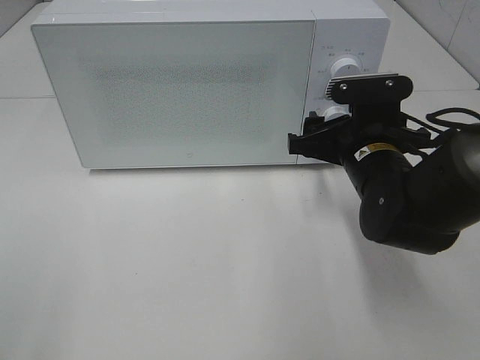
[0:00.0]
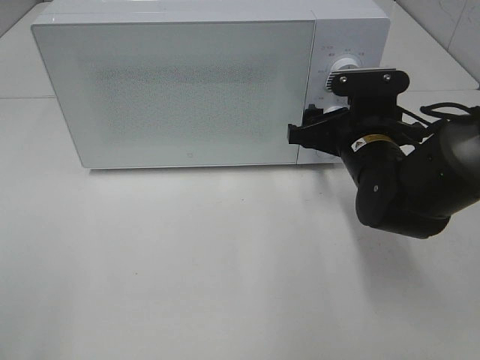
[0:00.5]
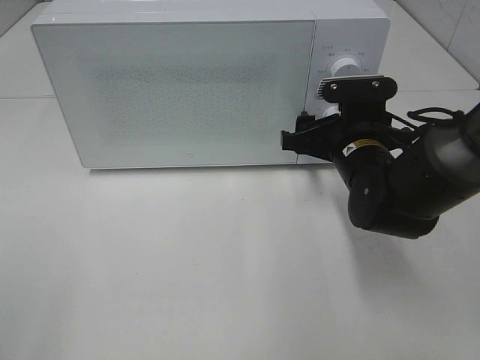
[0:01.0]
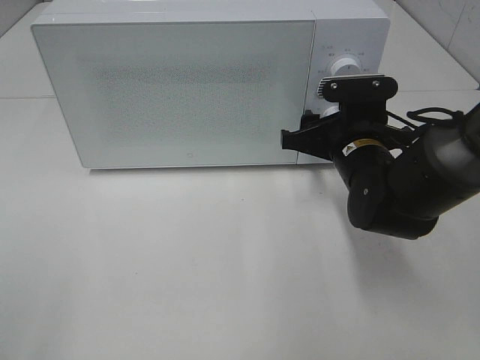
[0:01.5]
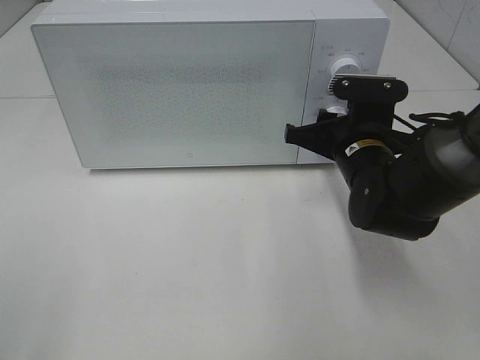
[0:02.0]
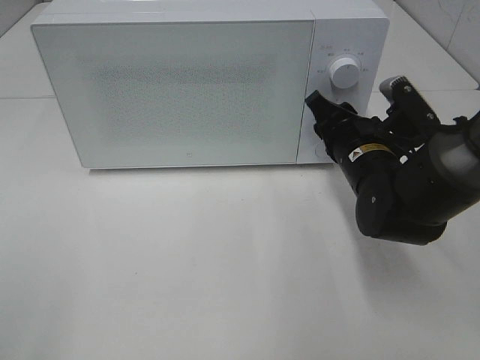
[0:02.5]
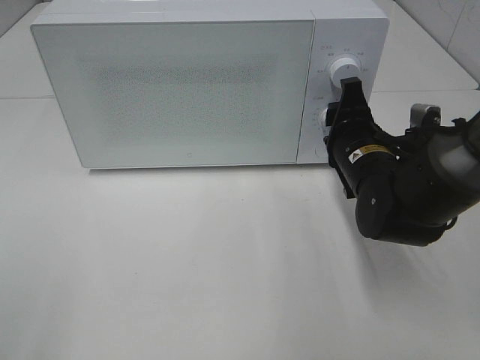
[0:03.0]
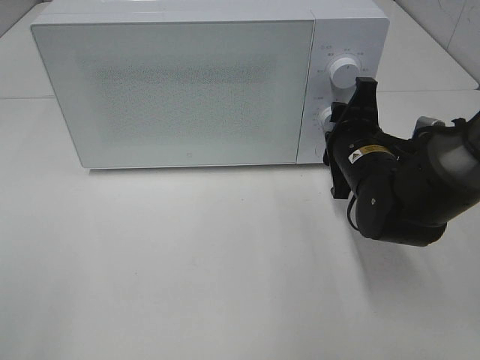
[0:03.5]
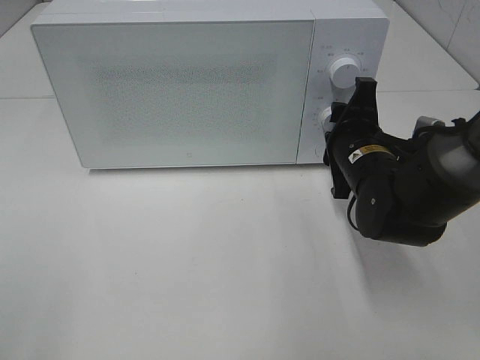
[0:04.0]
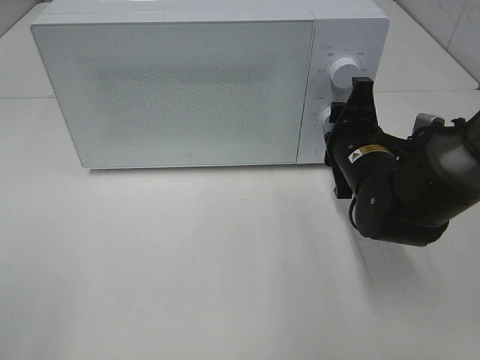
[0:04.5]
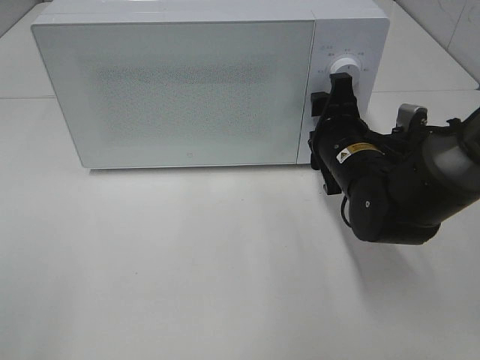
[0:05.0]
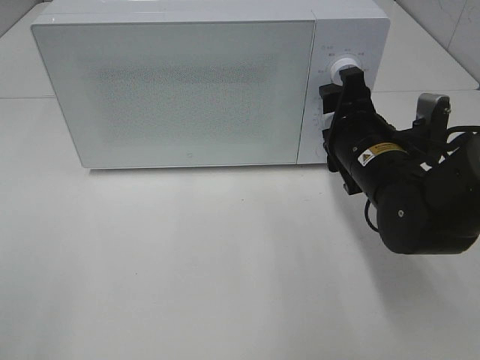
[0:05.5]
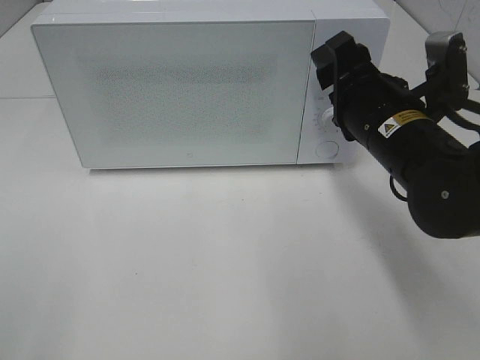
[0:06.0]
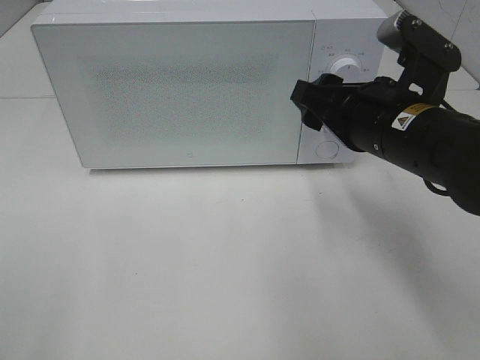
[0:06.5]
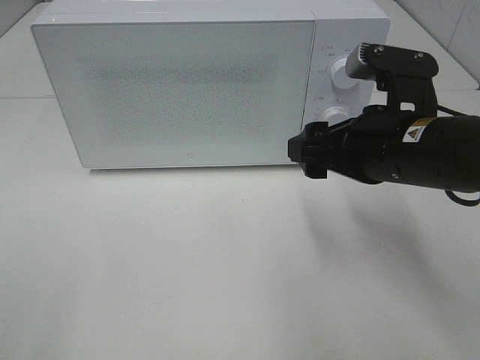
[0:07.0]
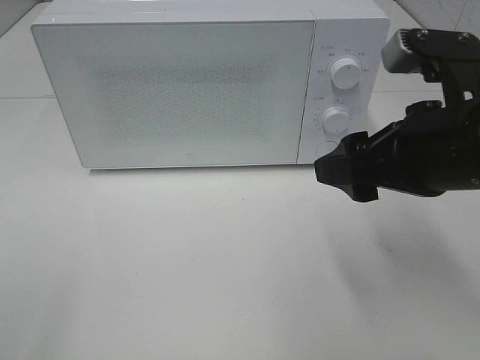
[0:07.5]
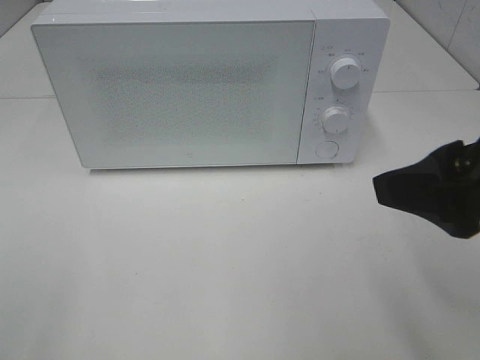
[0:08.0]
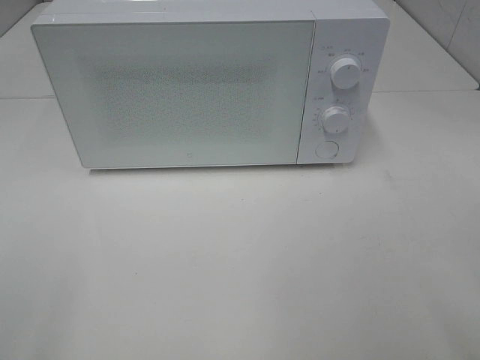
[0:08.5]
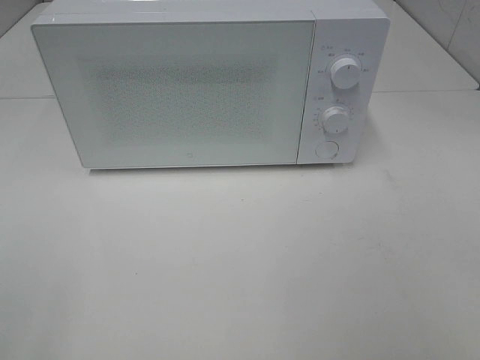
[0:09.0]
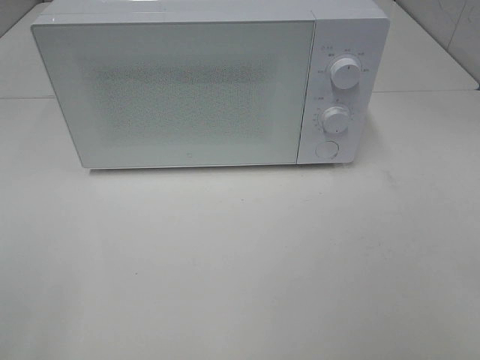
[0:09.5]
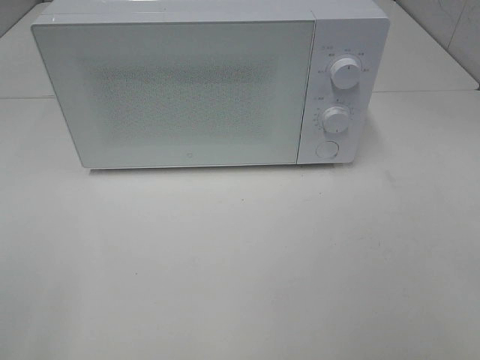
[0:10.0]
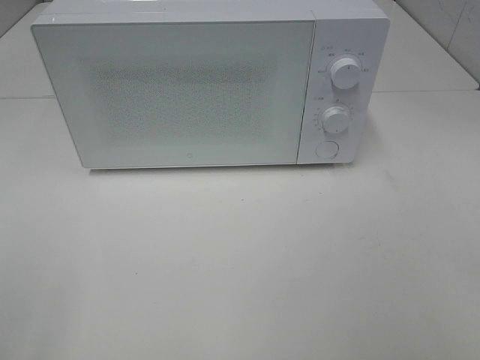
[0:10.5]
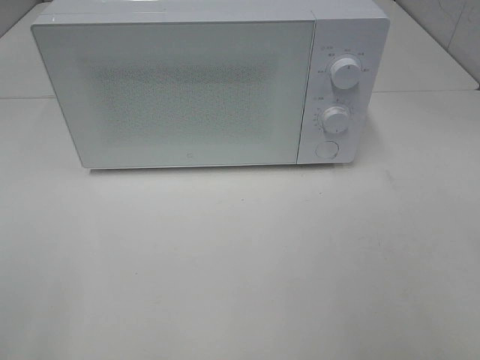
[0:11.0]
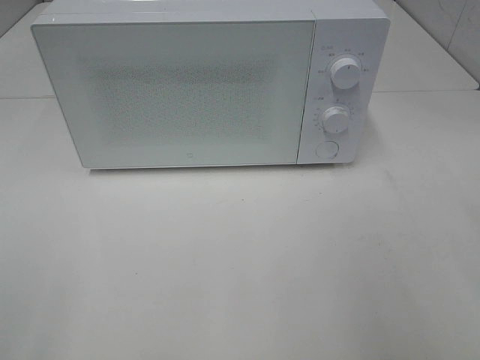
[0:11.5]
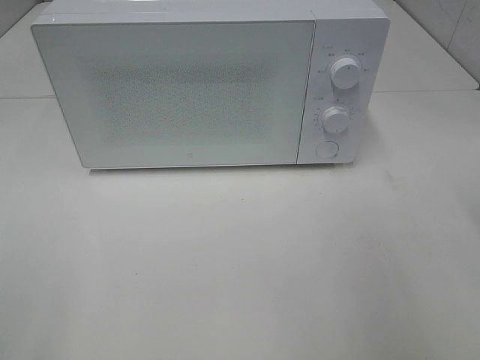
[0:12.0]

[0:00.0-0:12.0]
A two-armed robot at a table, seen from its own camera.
Task of the whole recording: Heat the burger.
Step, 0:00.0 to 0:04.5: Right hand: twist timer button.
0:00.0 to 0:02.0: The right gripper closes up.
0:04.0 to 0:06.0: The right gripper is displaced upward by about 5 cm.
0:06.0 to 0:08.0: The right gripper goes some 20 cm backward, upward and to the right.
0:08.0 to 0:10.0: The right gripper shifts about 15 cm backward and to the right.

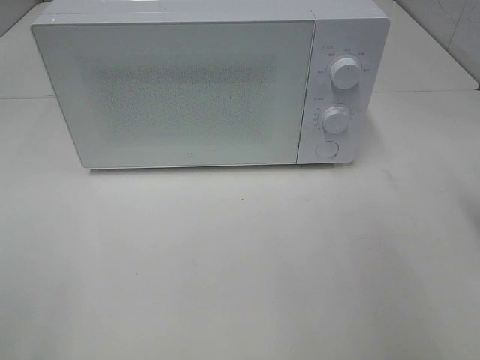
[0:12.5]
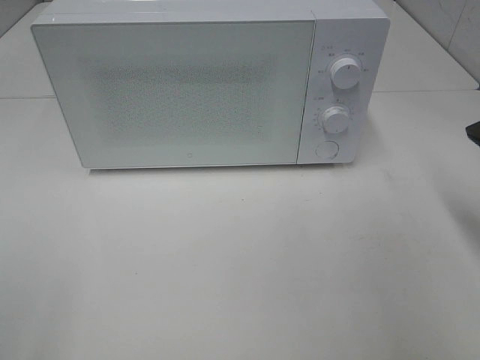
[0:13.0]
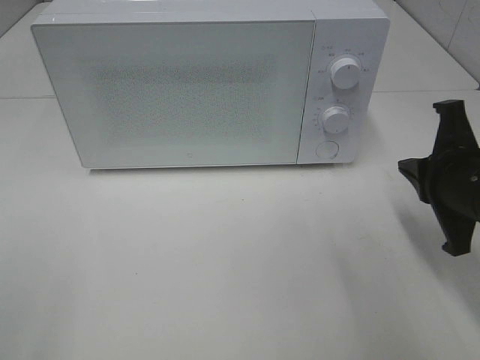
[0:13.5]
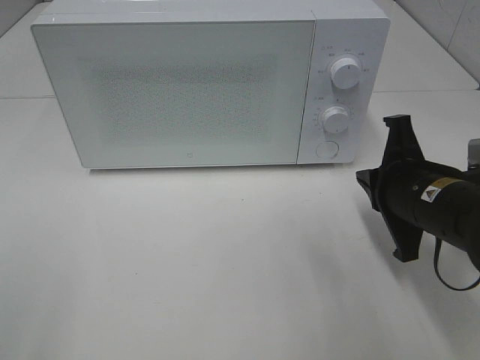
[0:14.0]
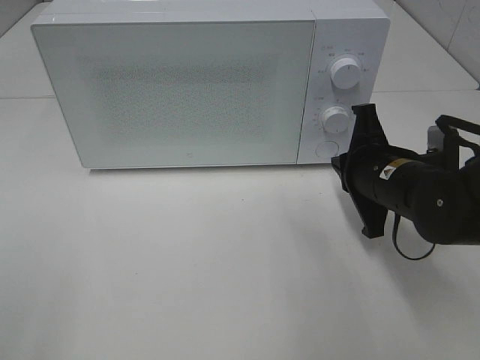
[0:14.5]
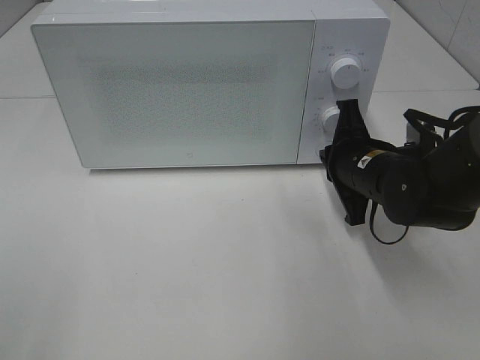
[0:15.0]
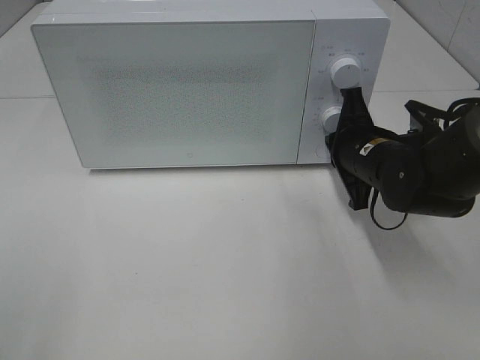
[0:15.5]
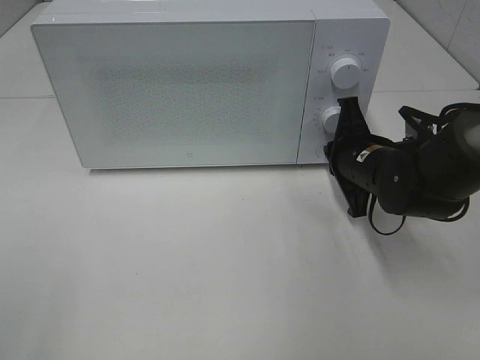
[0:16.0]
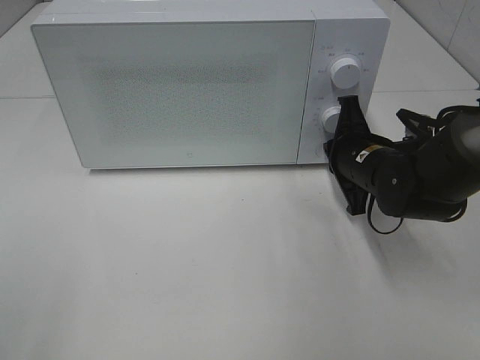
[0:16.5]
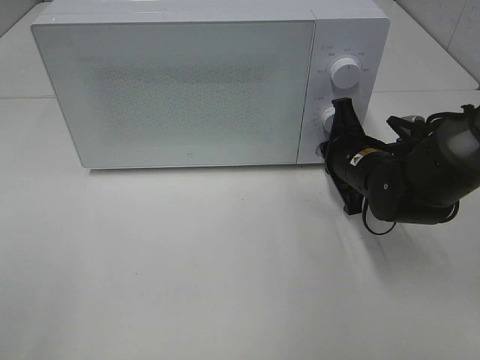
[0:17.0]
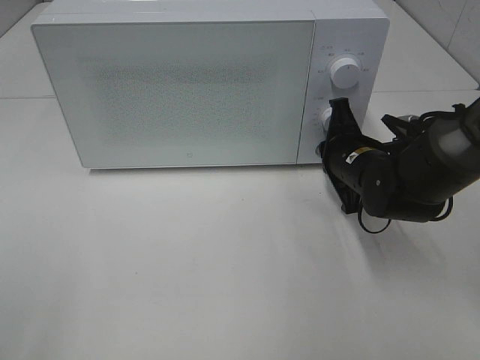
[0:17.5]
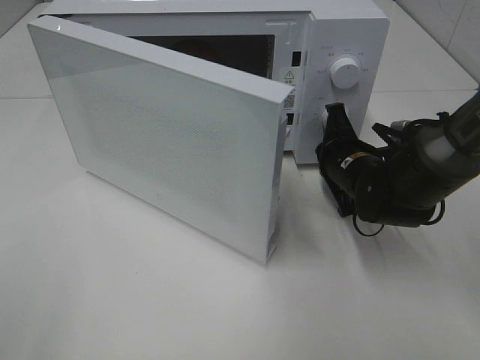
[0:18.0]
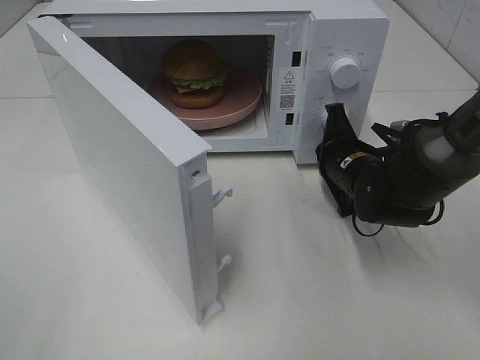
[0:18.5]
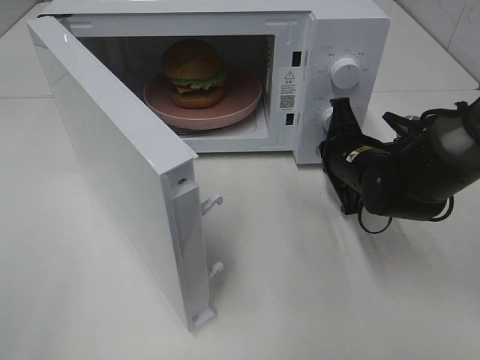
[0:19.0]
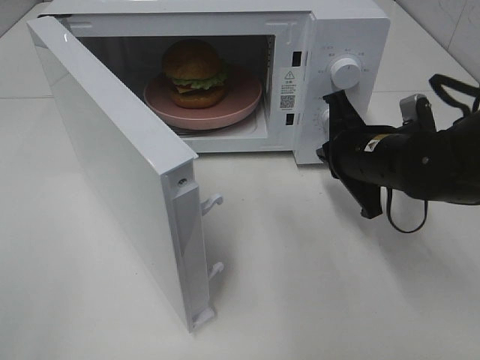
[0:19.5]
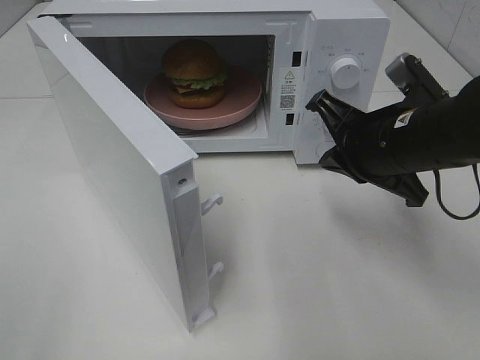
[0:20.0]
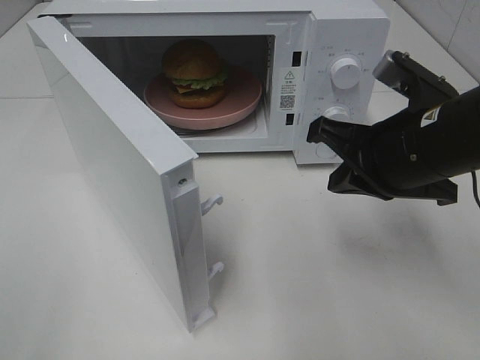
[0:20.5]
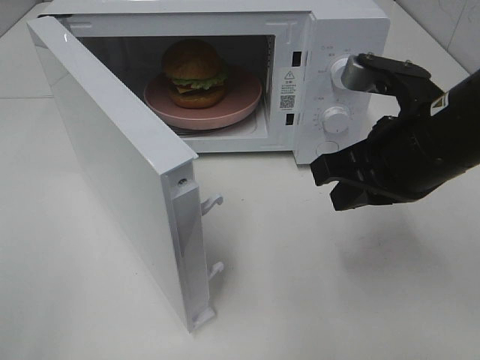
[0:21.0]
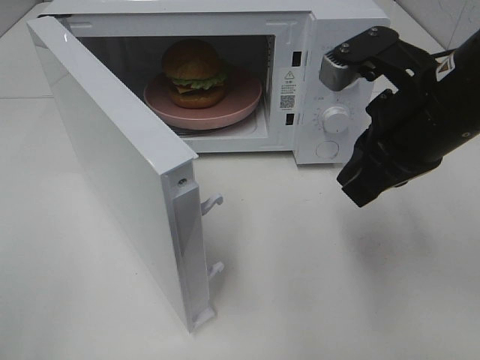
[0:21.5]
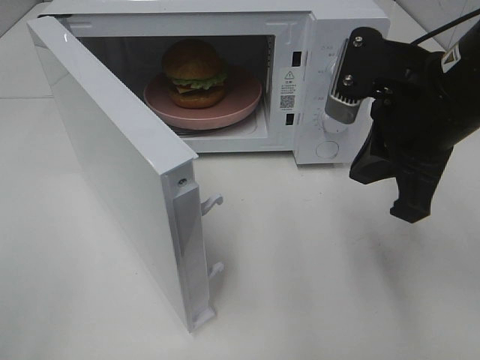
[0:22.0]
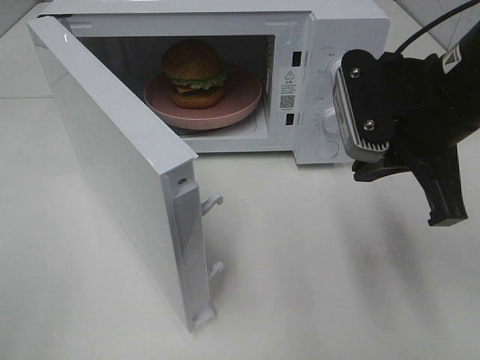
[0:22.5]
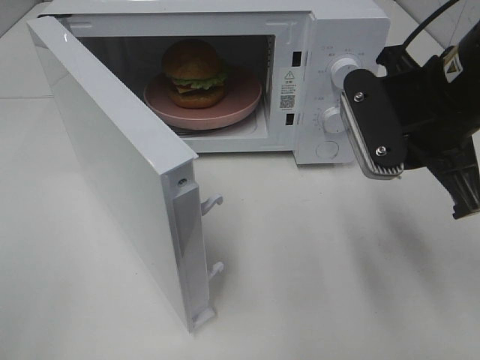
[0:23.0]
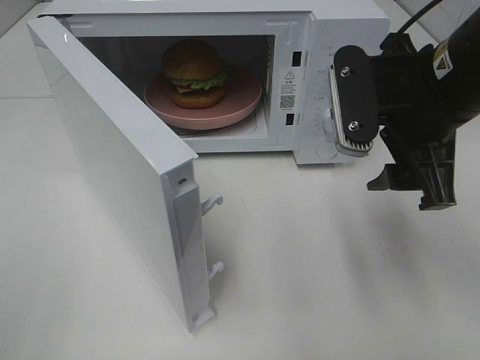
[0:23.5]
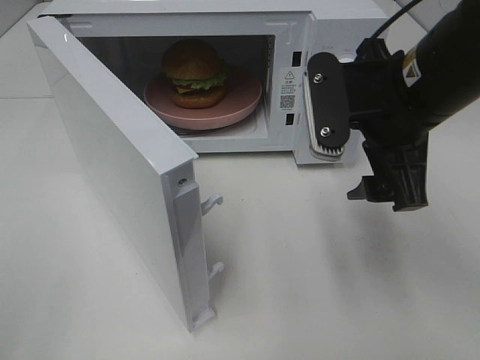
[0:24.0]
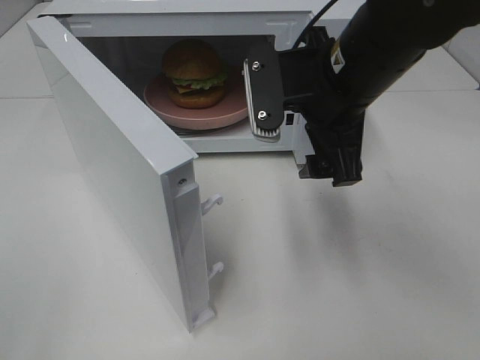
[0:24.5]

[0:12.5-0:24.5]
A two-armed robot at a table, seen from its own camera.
Task of the whole recording: Heat the burger.
Step, 0:12.5 to 0:19.0: Right hand: press the switch.
0:12.5 to 0:14.5: The right gripper goes some 20 cm downward, to the left and forward.
0:14.5 to 0:16.5: The right gripper moves forward, some 5 cm.
0:18.5 to 0:20.5: The right gripper is displaced upward and backward by about 15 cm.
0:20.5 to 0:22.5: The right gripper moves upward, roughly 5 cm.
0:22.5 to 0:24.5: The right gripper is displaced to the left by approximately 5 cm, and opens its fingers.

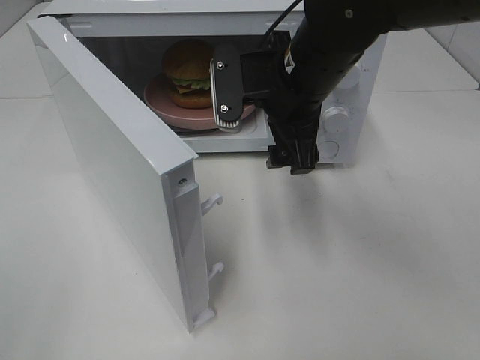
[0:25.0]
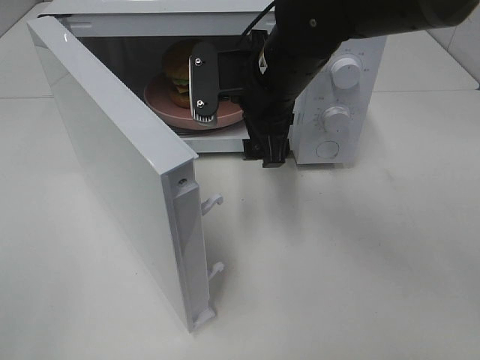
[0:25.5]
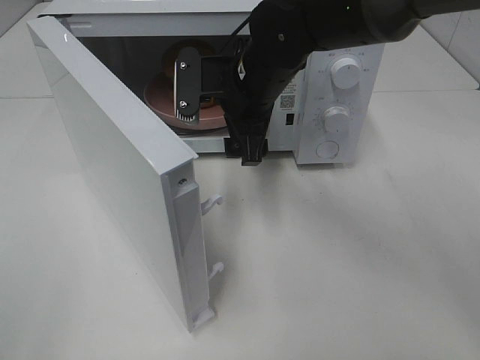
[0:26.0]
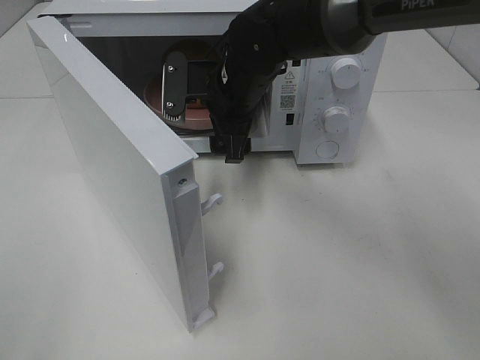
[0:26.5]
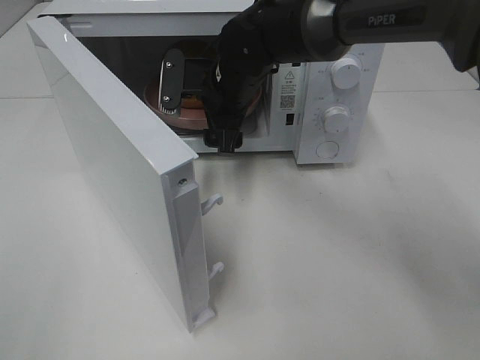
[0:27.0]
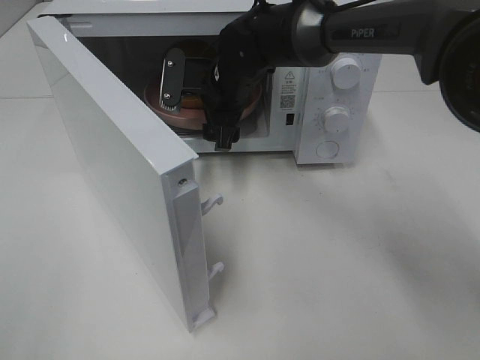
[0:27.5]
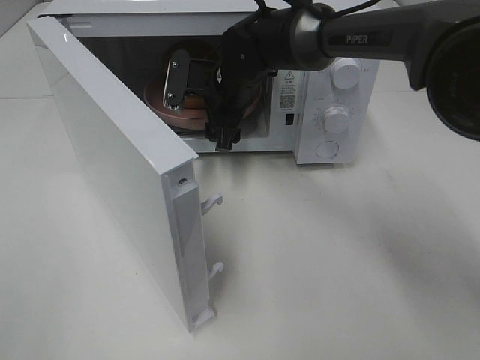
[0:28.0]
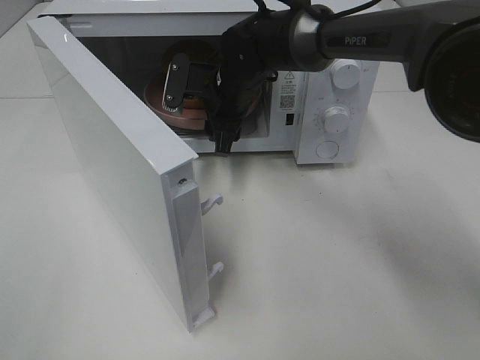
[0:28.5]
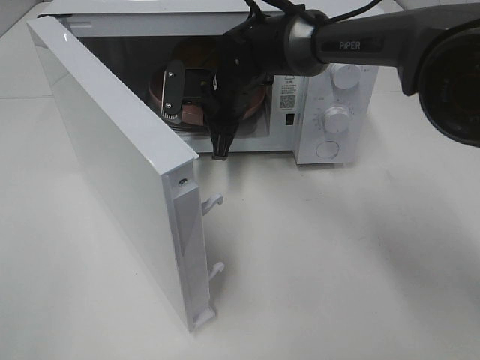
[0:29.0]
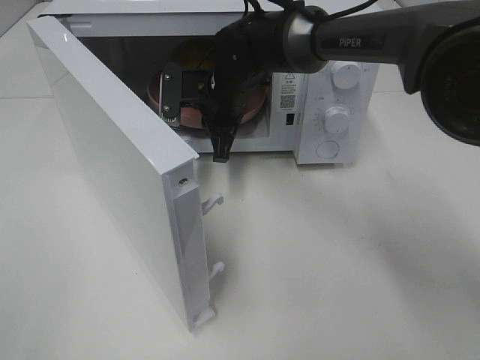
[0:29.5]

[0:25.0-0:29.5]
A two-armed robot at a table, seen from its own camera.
Task of the whole recording: Heat the burger.
Step, 0:25.0 to 0:29.0: Right hand: grab the plate with the hamburger.
0:25.0 to 0:27.0: The right gripper travels forward, to the left and downward by roughly 15 cm.
0:27.0 to 0:29.5: The right gripper closes.
